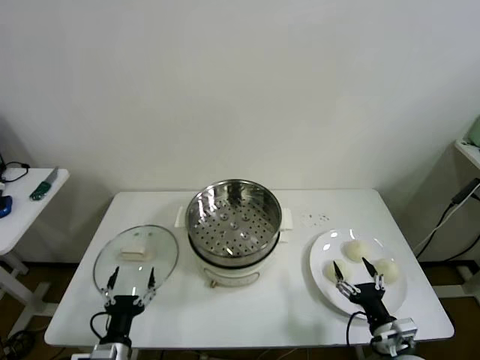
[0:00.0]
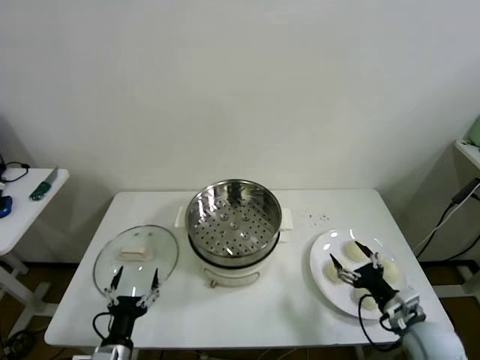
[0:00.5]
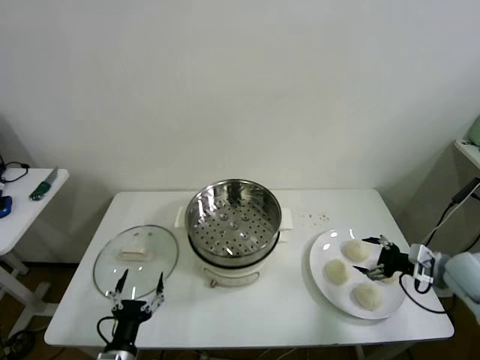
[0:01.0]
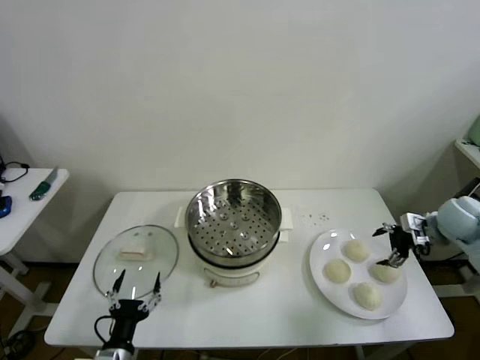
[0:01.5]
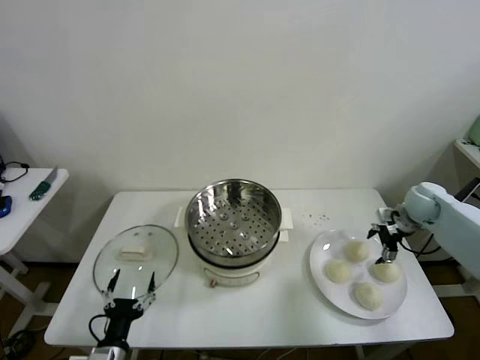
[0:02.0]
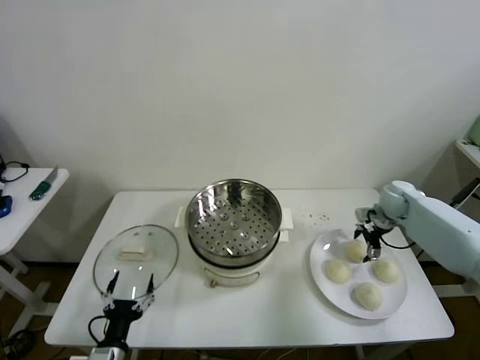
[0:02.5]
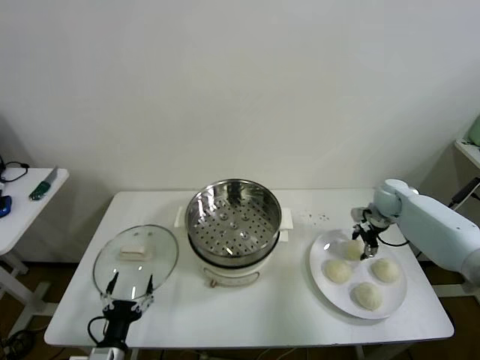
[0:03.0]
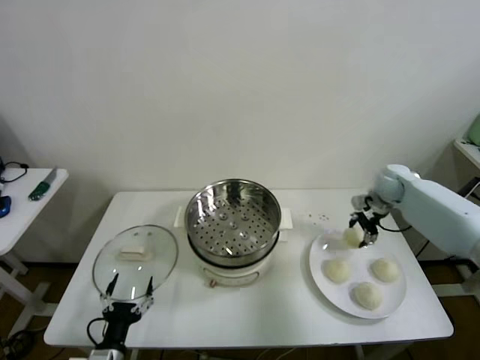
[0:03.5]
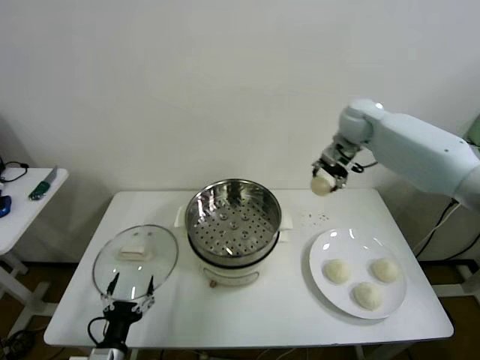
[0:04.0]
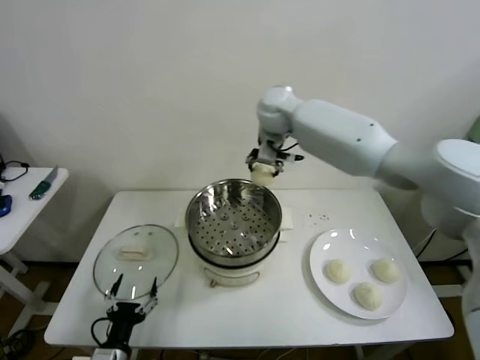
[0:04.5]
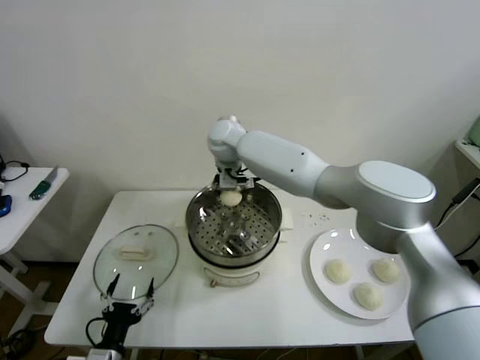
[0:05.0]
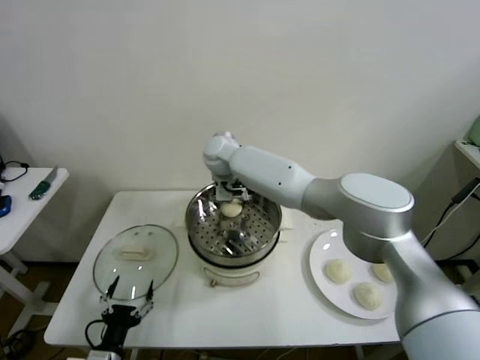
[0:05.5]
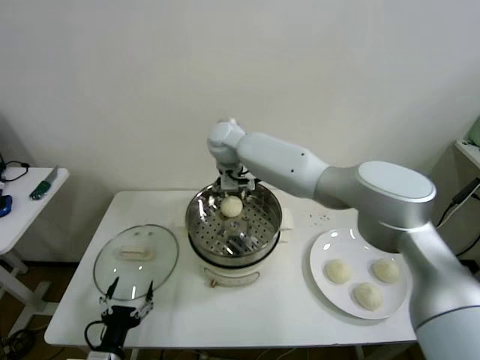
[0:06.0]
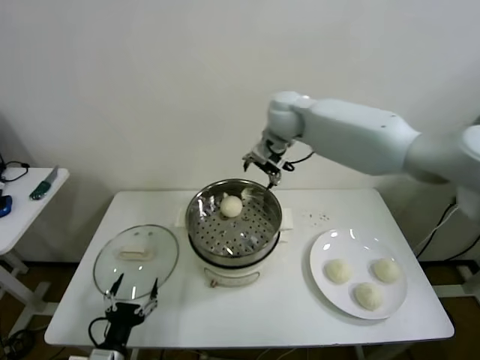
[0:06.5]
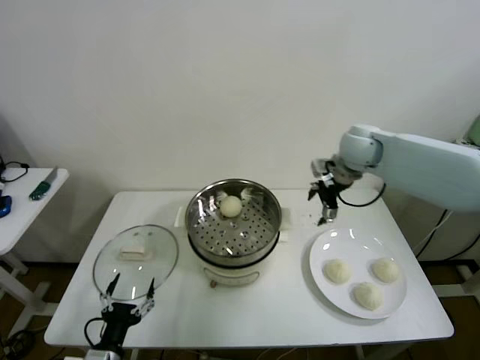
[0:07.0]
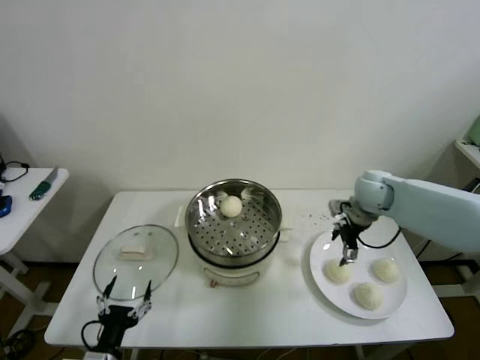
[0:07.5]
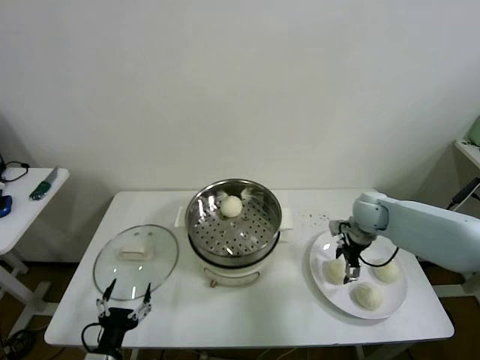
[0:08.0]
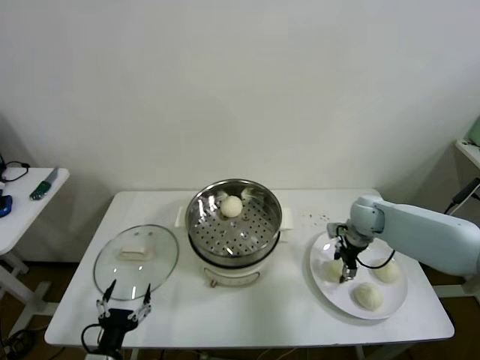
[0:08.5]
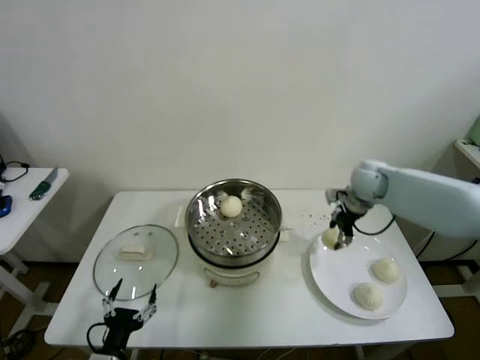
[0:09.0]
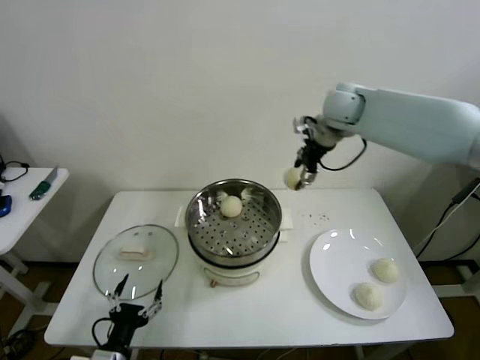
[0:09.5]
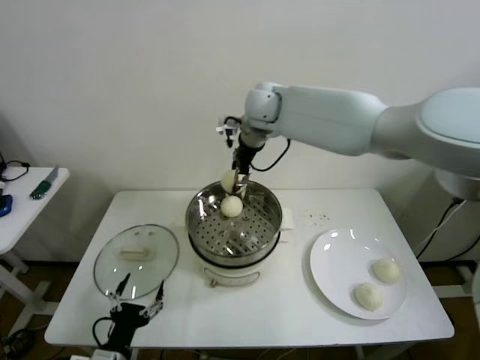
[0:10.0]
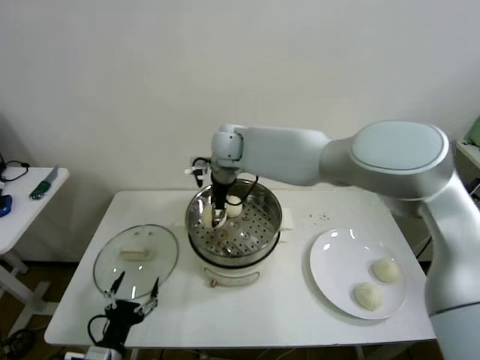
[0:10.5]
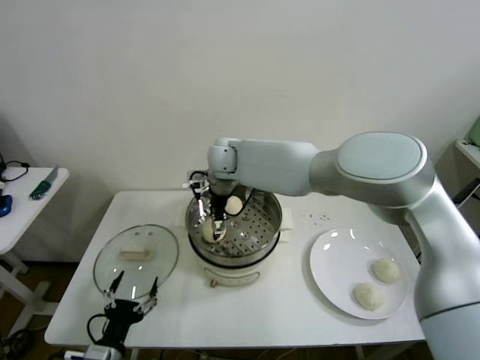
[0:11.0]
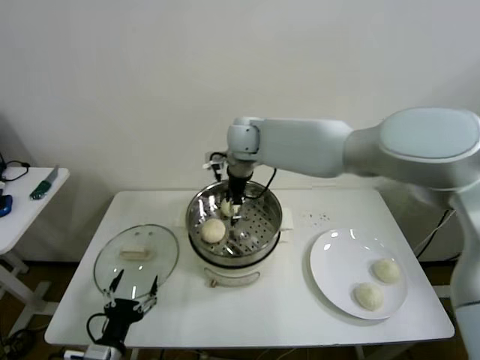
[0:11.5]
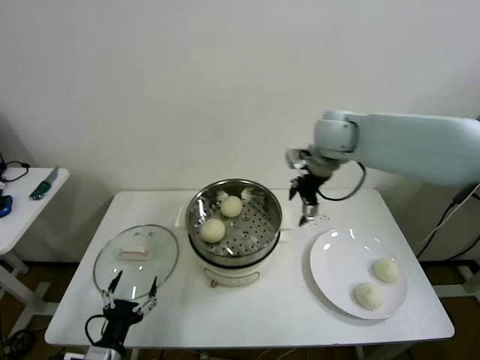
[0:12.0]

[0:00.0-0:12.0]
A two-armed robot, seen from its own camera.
Step, 0:00.0 to 0:02.5: Grasp the baozi in the plate with right gripper.
Step, 0:03.0 to 0:05.5: Place the baozi on the steamer with right gripper.
Step, 0:06.0 to 0:08.0: Grasp the baozi in the plate with right gripper.
Step, 0:08.5 to 0:10.5: Place the baozi on the steamer with right gripper.
0:02.0 to 0:04.0: The right gripper travels to the left, upward and forward by some 30 cm, and closes up.
0:04.0 to 0:06.0: The right gripper travels to the left by roughly 25 cm, and opens up.
0:06.0 to 0:08.0: The right gripper travels to the right and downward by about 40 cm.
0:08.0 to 0:10.0: The right gripper is displaced to the left and upward by some 40 cm, and closes.
0:10.0 to 0:12.0: The right gripper travels to the right by approximately 20 cm, and opens.

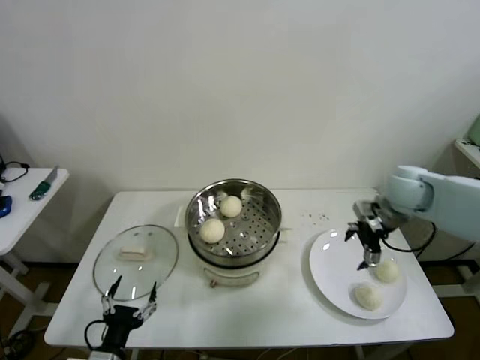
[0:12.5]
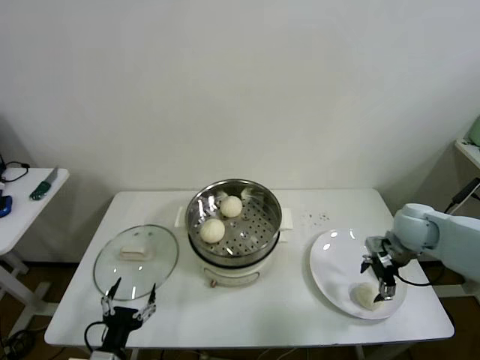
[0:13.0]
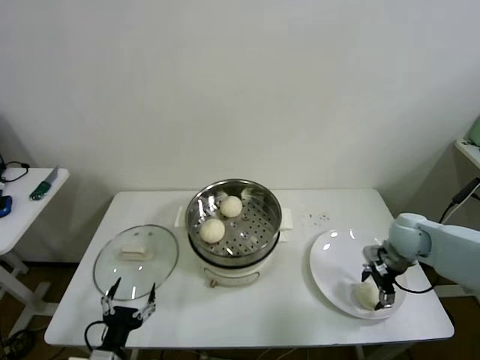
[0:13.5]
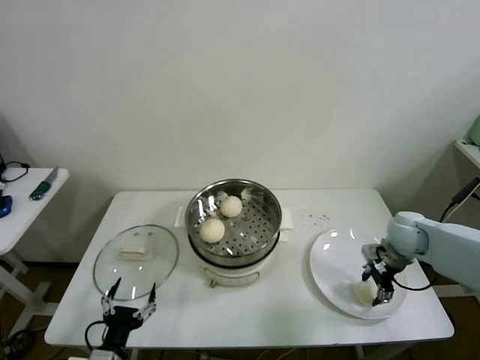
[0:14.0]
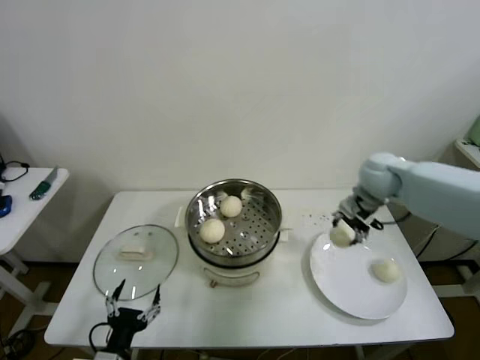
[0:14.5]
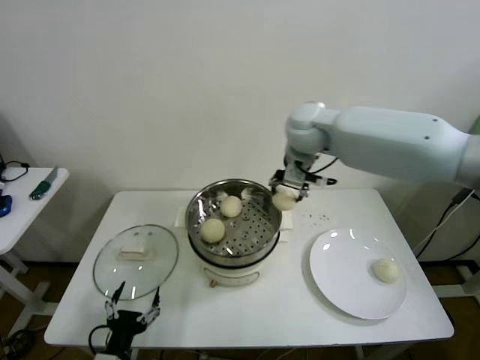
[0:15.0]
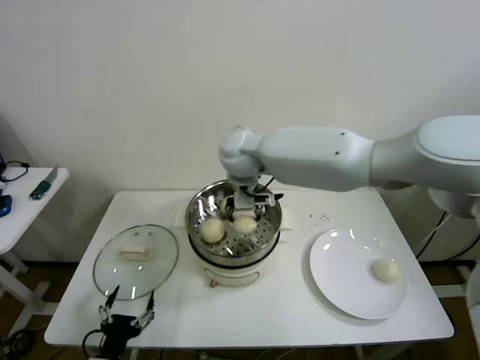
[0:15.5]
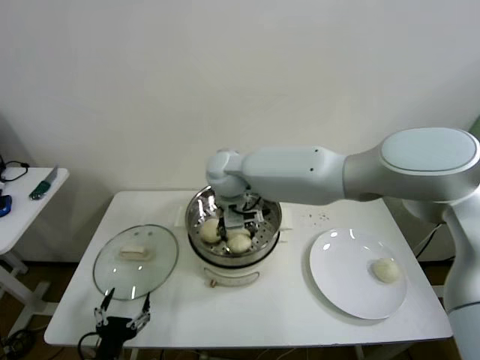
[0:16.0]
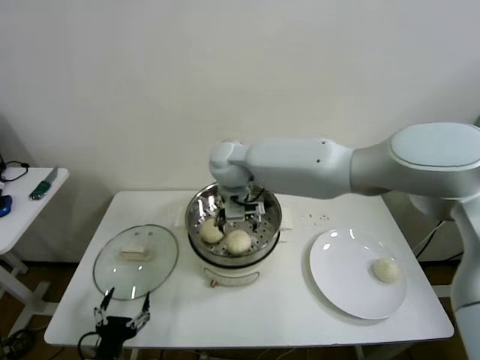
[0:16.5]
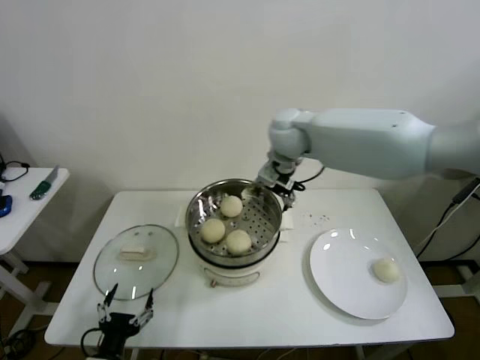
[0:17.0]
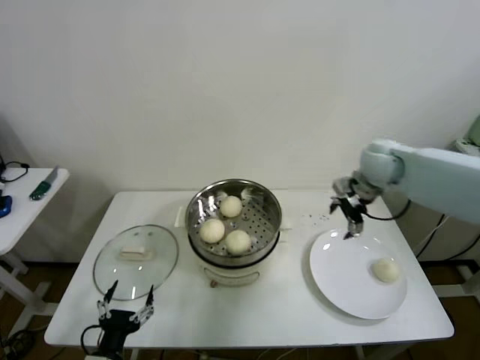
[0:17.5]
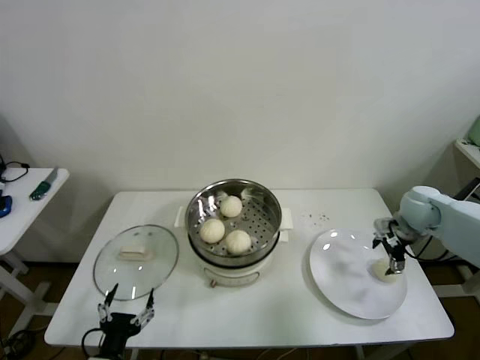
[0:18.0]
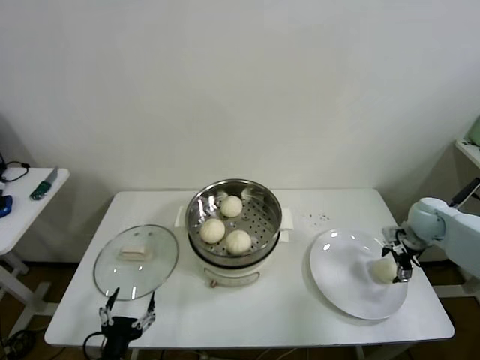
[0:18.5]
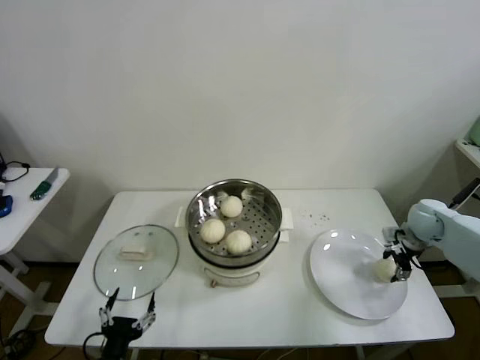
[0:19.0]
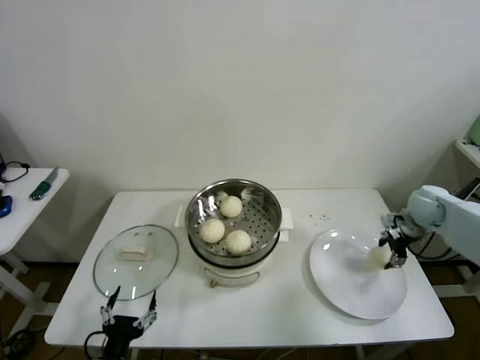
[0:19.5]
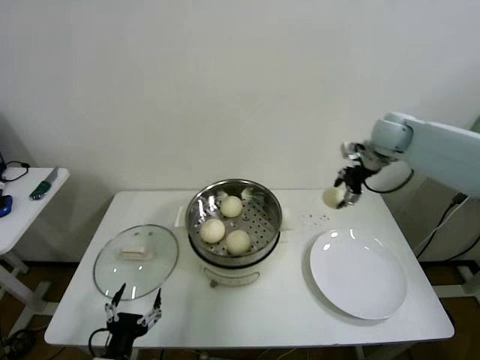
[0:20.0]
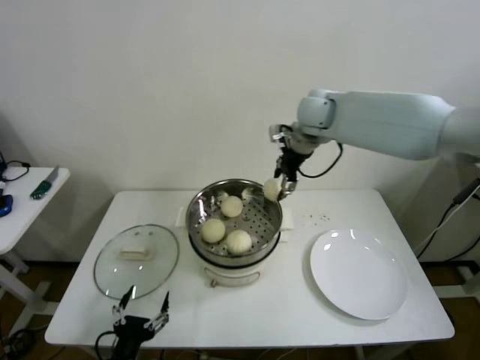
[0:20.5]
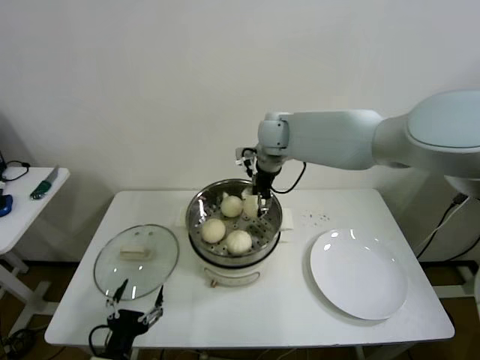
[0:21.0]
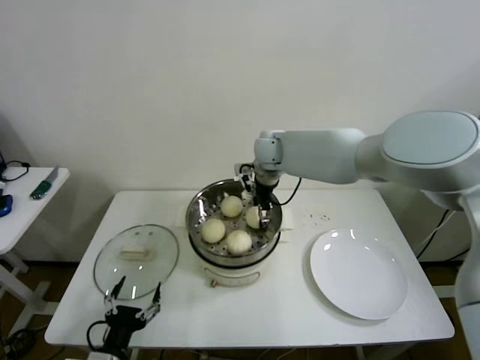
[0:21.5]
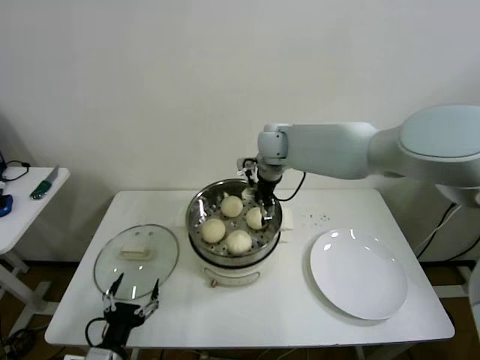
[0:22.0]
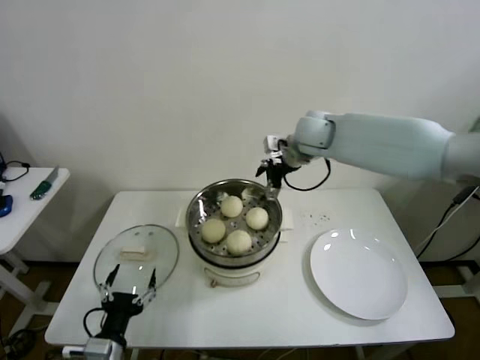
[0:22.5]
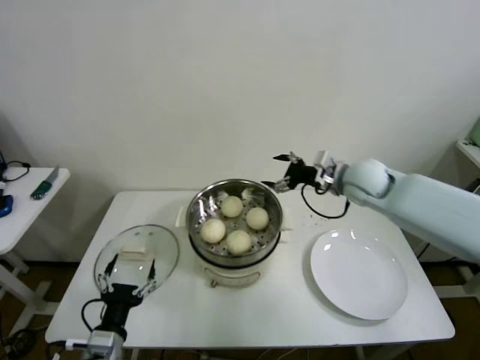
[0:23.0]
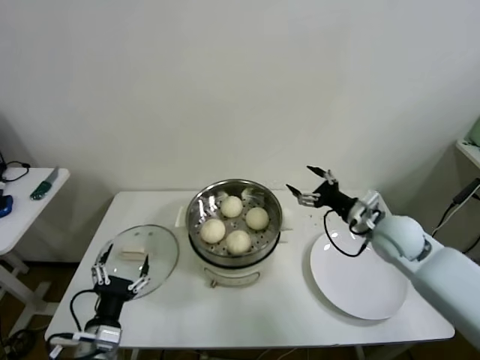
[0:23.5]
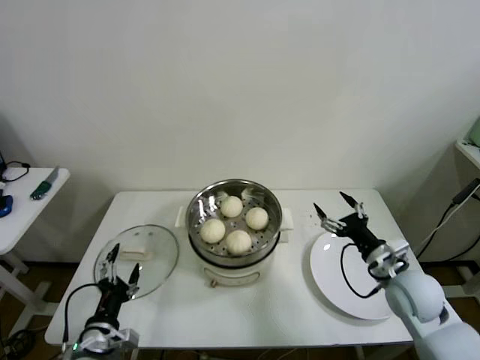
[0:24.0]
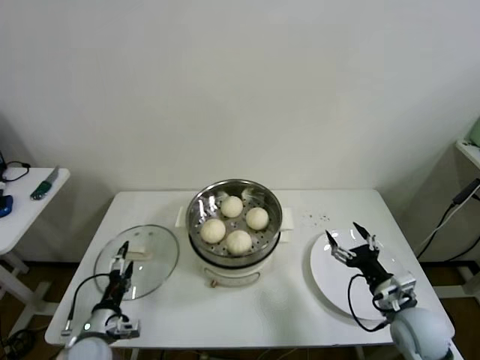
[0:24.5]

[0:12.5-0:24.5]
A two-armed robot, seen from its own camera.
Step, 0:14.0 to 0:16.0: Place the baozi on the steamer with right gripper.
Step, 0:16.5 to 0:18.5: Grasp the baozi in the plate with right gripper.
Step, 0:19.0 to 0:21.5: Place the baozi on the steamer with right gripper.
0:12.5 to 0:14.5: The right gripper is displaced to the left and forward by roughly 10 cm, reaches roughly 10 cm downward, then returns, and closes up.
0:14.5 to 0:16.5: The right gripper goes some 30 cm to the left, and opens its fingers.
0:16.5 to 0:18.5: The right gripper goes some 50 cm to the right.
0:18.5 to 0:20.5: The right gripper is displaced to the left and upward by about 40 cm, and closes.
0:20.5 to 0:22.5: The right gripper opens its fingers.
0:22.5 to 0:24.5: The left gripper goes roughly 10 cm forward, to the left and downward. The right gripper goes approximately 50 cm backward, downward and to the right.

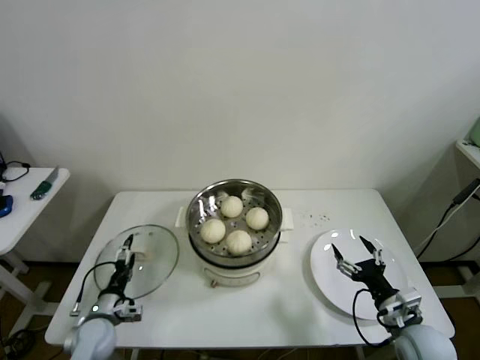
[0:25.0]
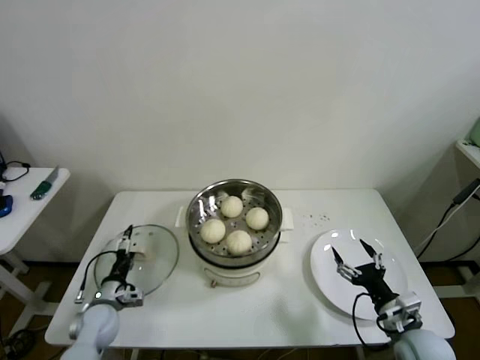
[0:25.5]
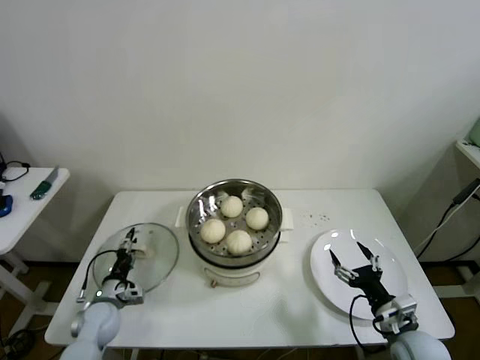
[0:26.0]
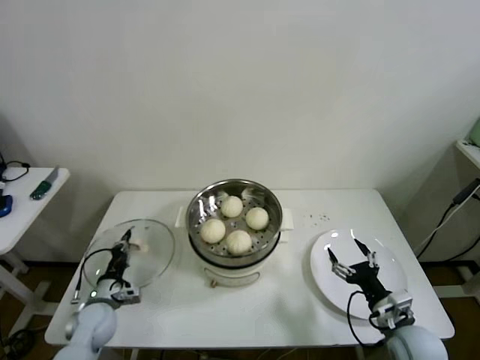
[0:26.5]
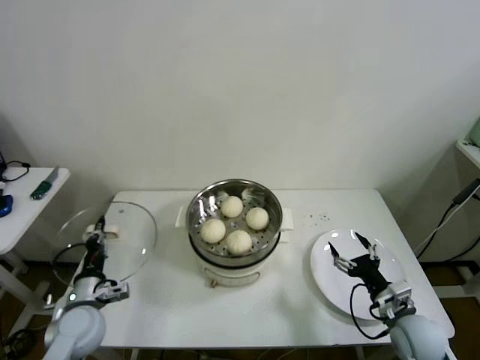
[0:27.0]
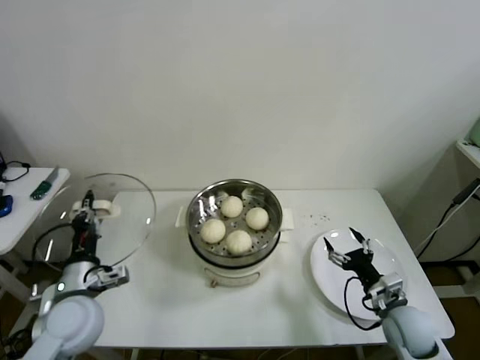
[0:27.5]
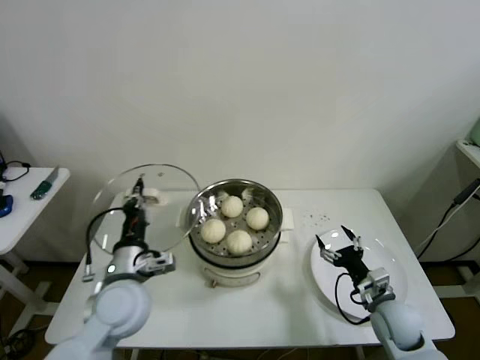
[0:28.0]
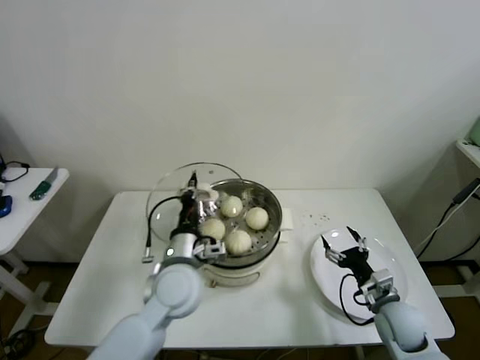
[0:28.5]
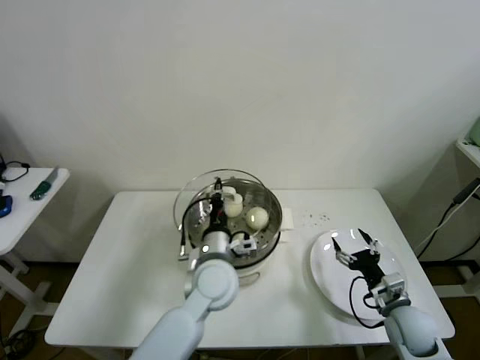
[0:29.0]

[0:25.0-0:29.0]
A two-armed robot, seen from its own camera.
0:25.0 to 0:27.0: The left gripper heads upward, covering about 10 cm, and closes its fingers.
0:27.0 to 0:29.0: The left gripper shifts some 30 cm to the right.
